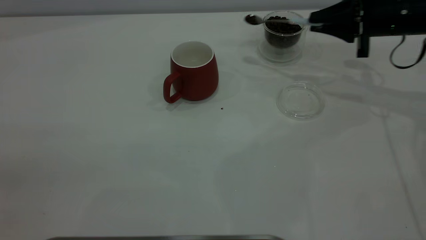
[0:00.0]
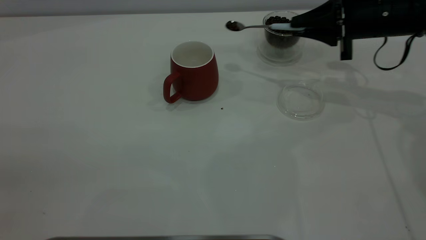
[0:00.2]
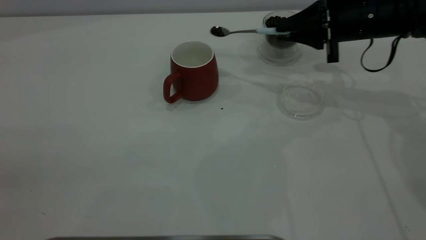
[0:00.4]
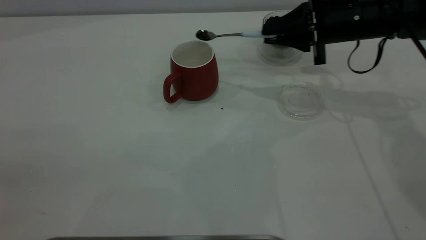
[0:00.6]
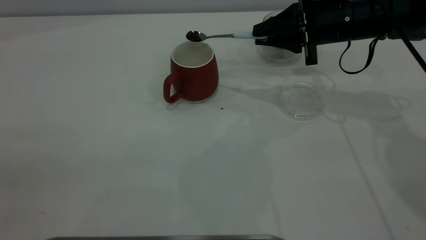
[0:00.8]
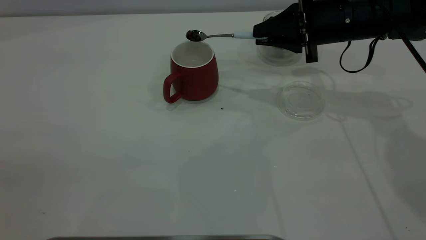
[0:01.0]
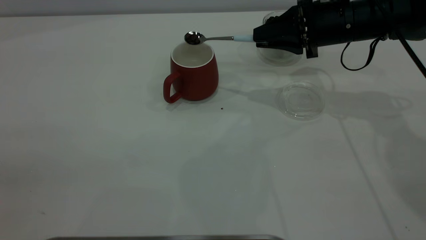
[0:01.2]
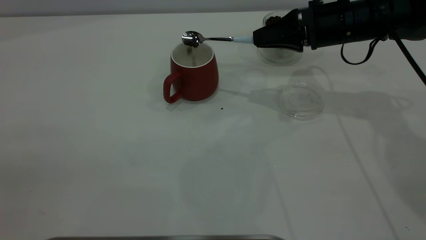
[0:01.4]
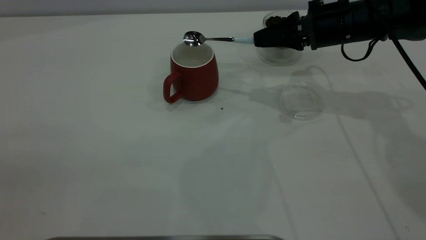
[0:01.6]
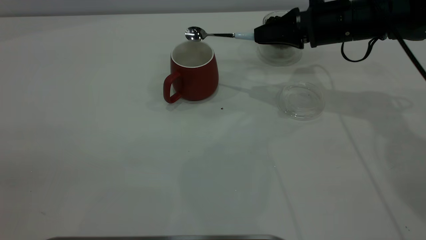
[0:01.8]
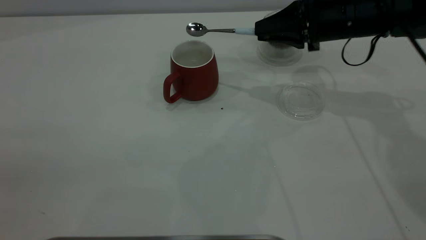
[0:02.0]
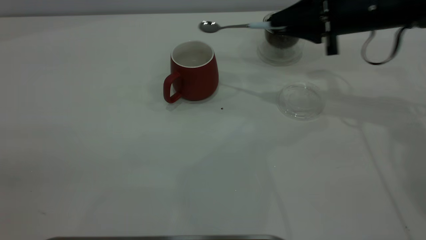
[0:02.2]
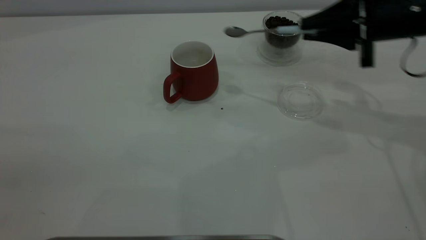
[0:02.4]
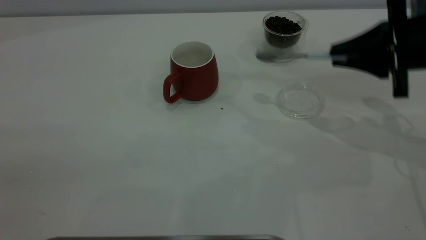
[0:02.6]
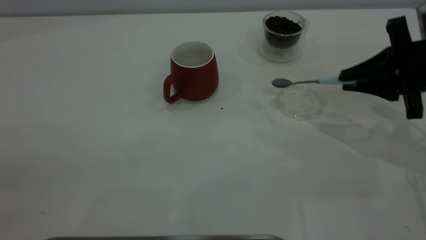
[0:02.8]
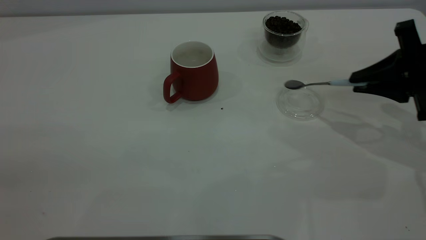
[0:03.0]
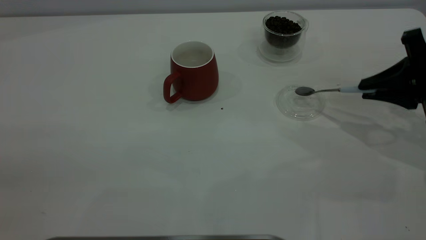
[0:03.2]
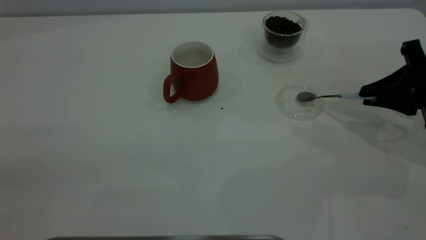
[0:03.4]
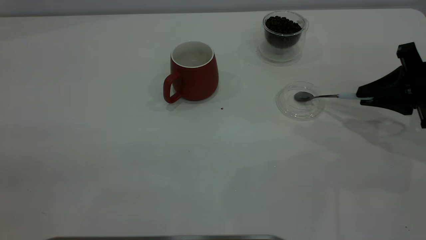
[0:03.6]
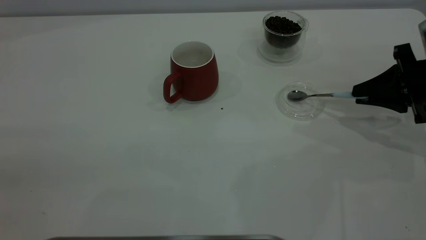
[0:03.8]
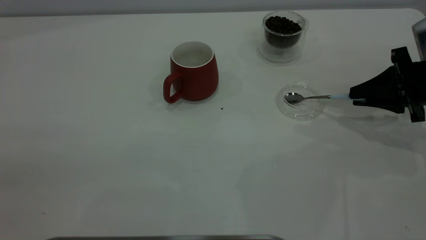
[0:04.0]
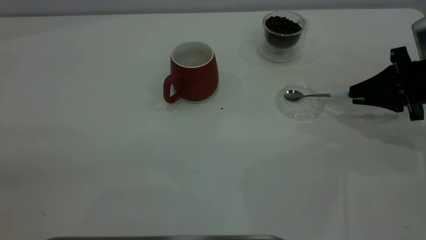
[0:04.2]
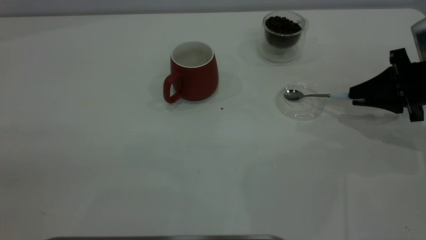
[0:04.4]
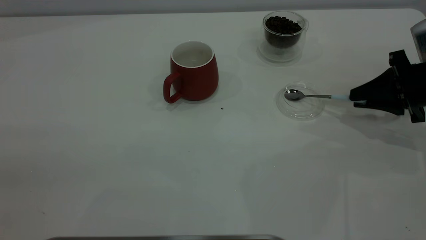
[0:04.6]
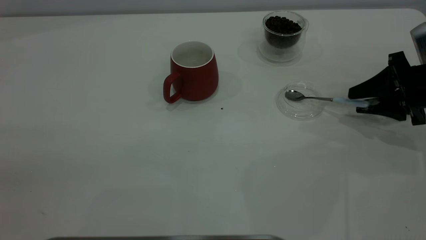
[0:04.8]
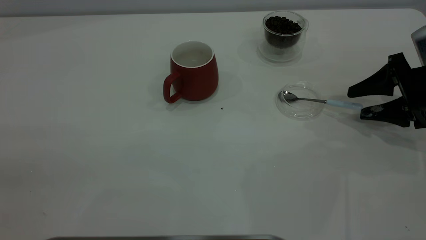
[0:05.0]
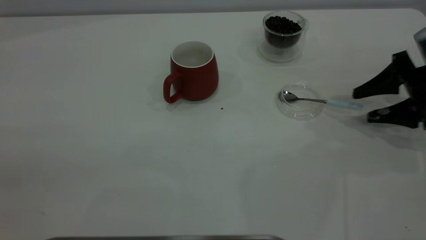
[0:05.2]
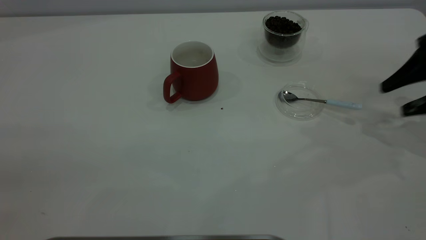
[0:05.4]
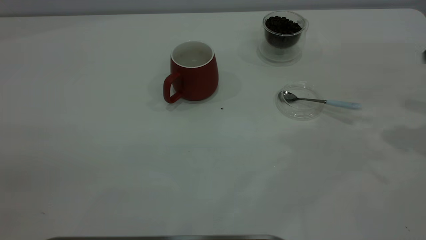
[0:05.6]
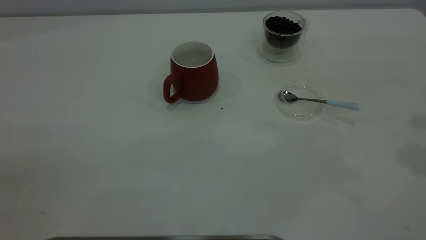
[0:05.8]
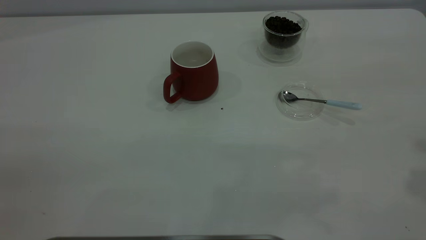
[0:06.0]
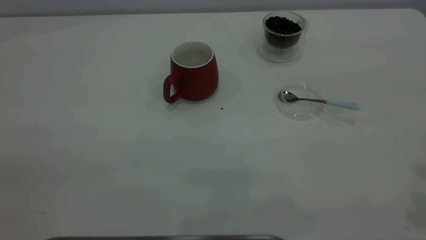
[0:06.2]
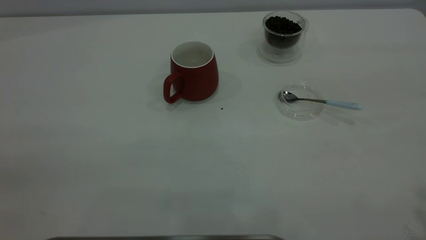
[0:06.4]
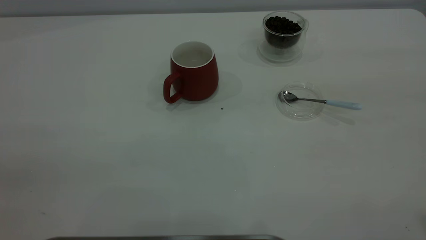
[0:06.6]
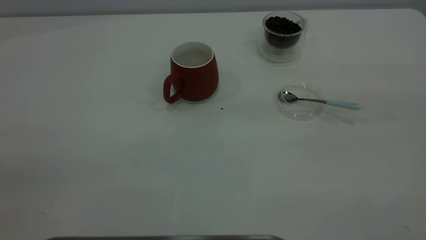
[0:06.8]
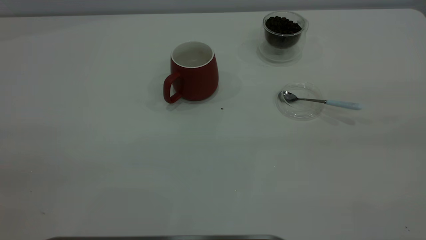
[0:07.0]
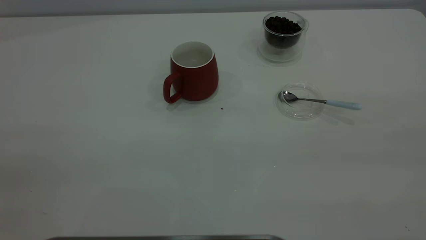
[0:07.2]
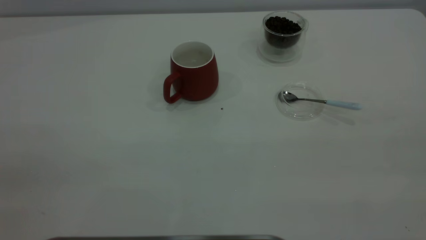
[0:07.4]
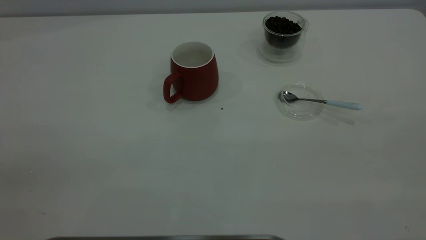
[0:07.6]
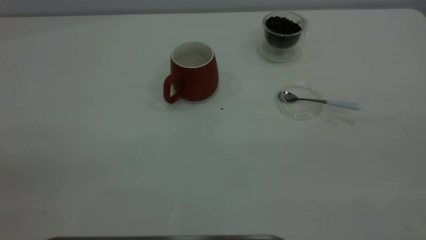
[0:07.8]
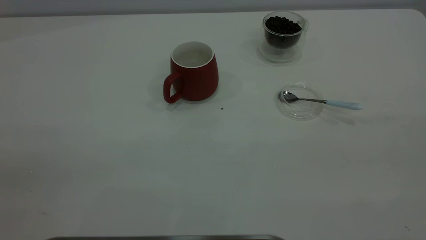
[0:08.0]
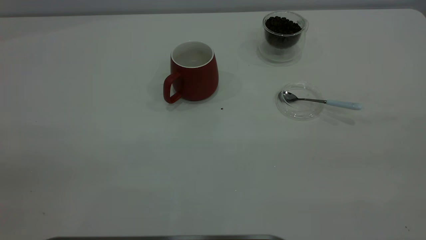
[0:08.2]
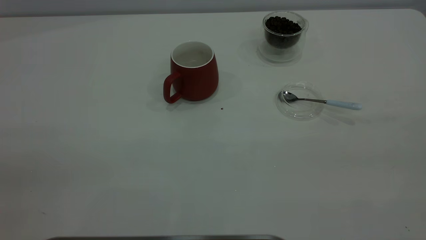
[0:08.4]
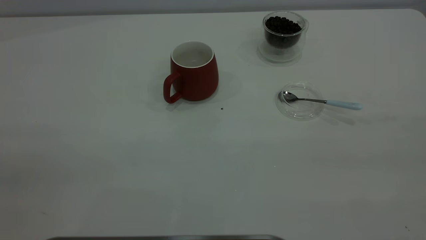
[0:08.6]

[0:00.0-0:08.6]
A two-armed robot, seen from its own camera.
Task of the whole recording: the left gripper place the red cup in the center of the table, the right gripper take the blue spoon from the cup lid and scoop out the coffee beans from the coffee cup and put them into the red cup, the right gripper put the spoon back into the cup lid.
Step, 0:02.2 to 0:05.2: Place the spoon back in its original place.
0:00.0 to 0:01.4: The right gripper heads to the left, covering some 10 cm.
0:01.4 to 0:02.8: The right gripper is displaced backward and to the right by about 15 cm.
0:02.8 to 0:04.4: The right gripper shifts about 5 cm downward.
0:04.4 to 0:05.8: The right gripper goes roughly 25 cm upward, and opens its fingers.

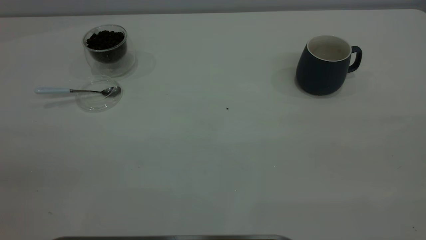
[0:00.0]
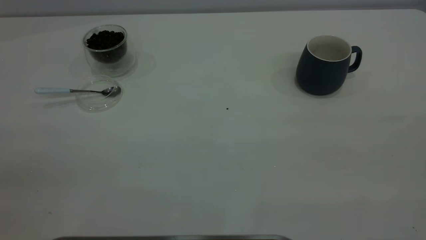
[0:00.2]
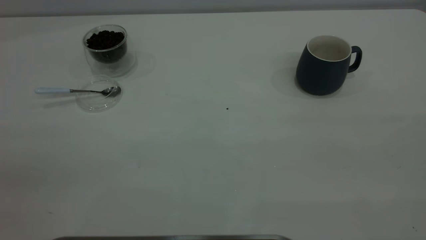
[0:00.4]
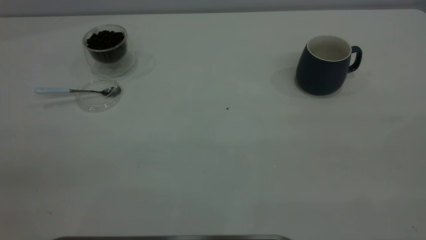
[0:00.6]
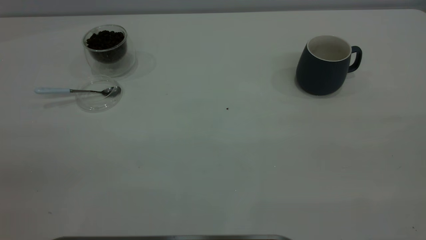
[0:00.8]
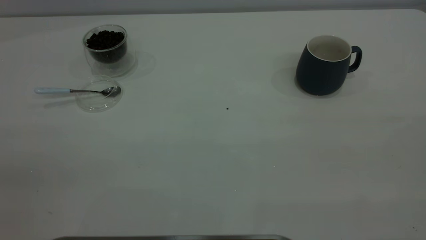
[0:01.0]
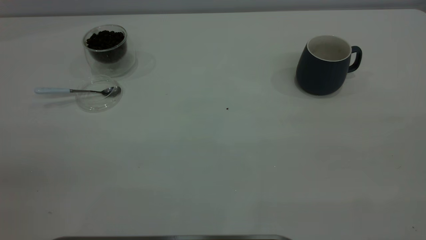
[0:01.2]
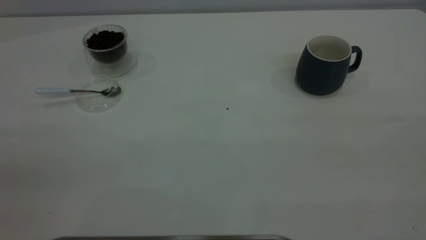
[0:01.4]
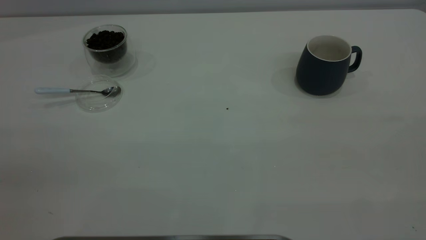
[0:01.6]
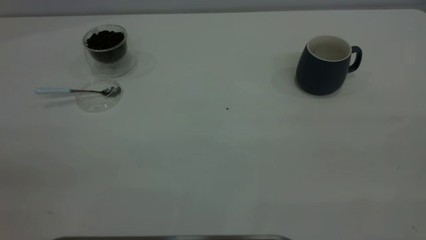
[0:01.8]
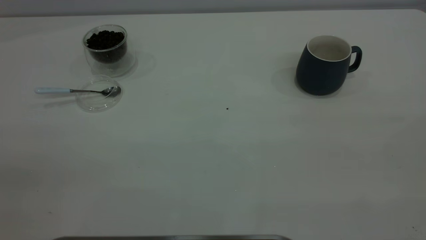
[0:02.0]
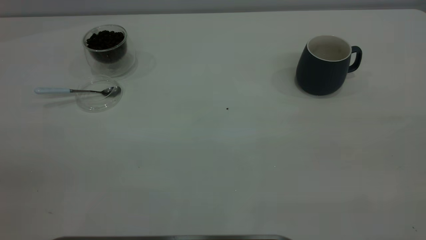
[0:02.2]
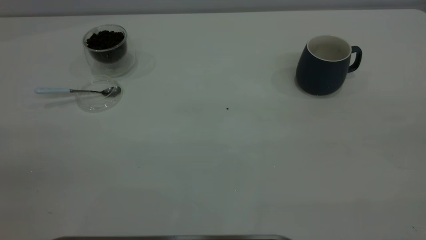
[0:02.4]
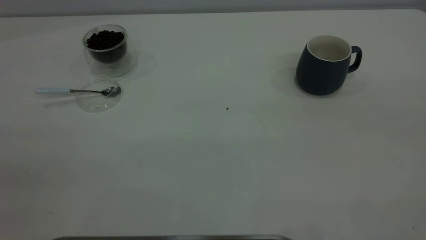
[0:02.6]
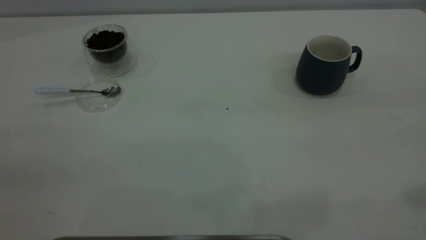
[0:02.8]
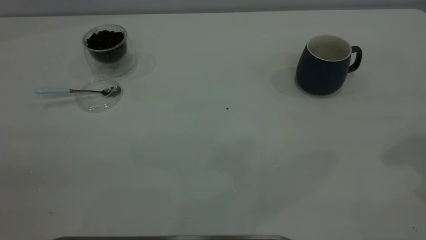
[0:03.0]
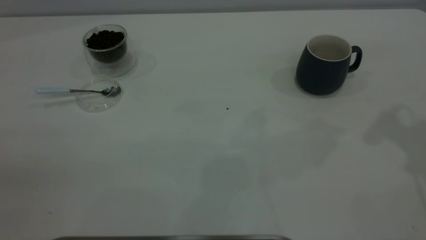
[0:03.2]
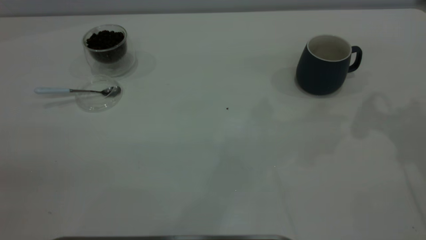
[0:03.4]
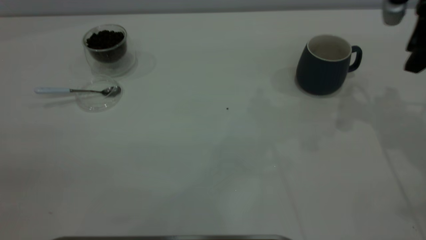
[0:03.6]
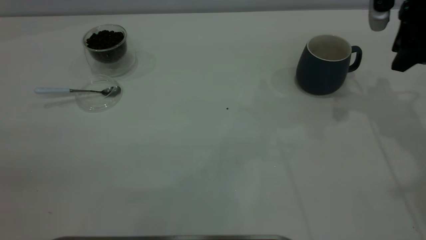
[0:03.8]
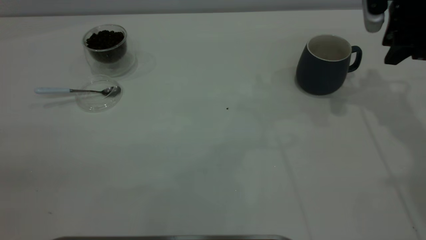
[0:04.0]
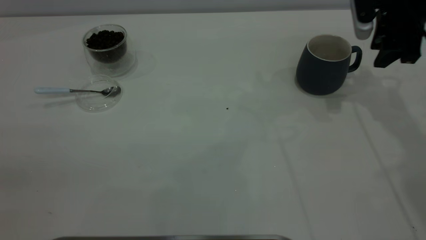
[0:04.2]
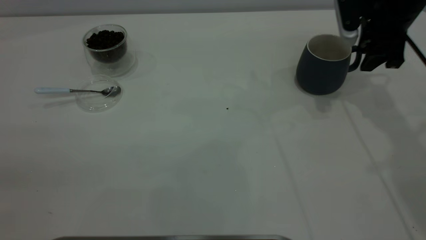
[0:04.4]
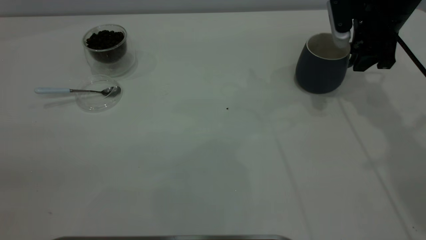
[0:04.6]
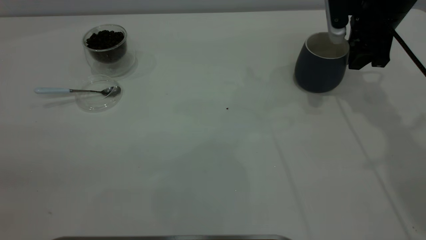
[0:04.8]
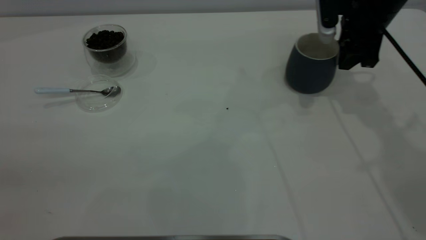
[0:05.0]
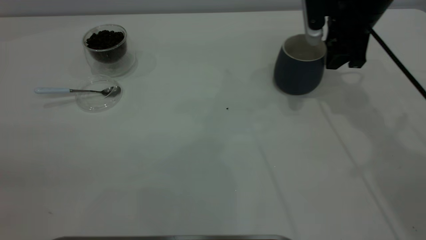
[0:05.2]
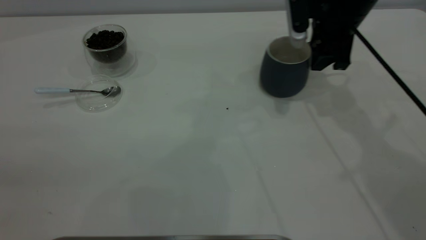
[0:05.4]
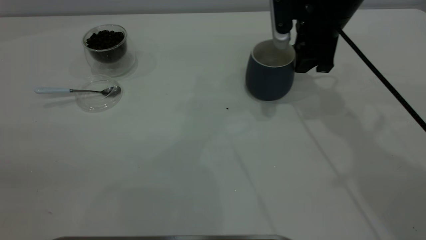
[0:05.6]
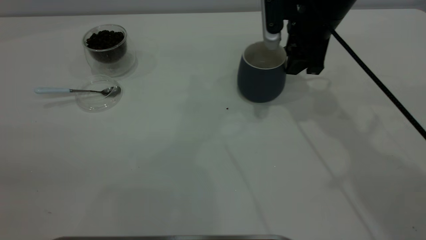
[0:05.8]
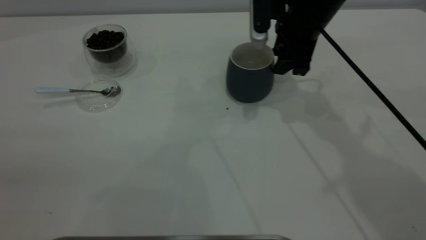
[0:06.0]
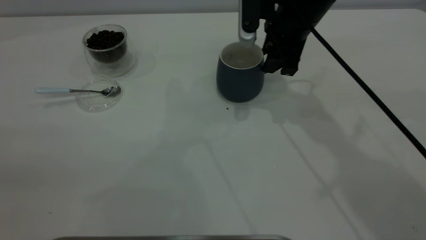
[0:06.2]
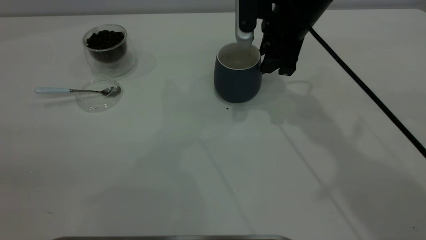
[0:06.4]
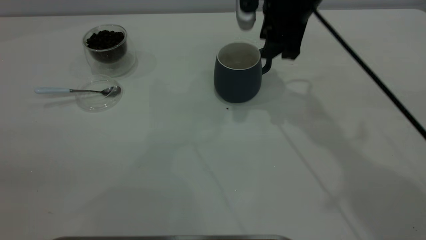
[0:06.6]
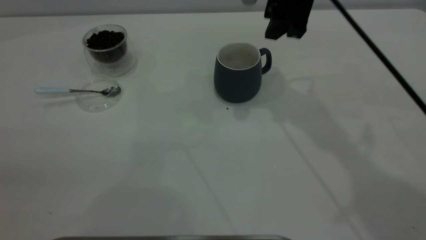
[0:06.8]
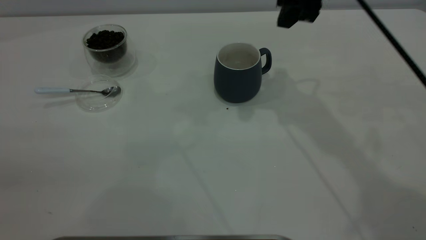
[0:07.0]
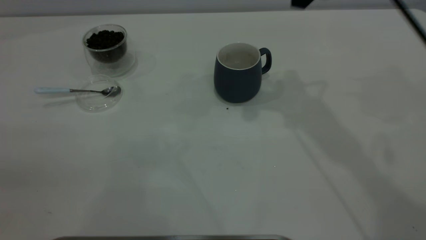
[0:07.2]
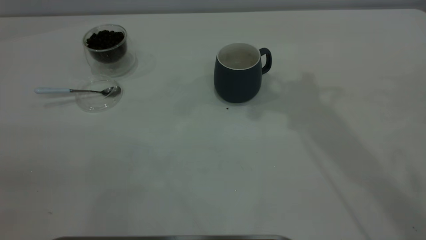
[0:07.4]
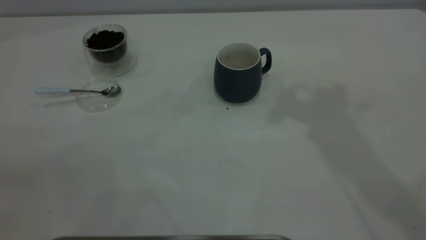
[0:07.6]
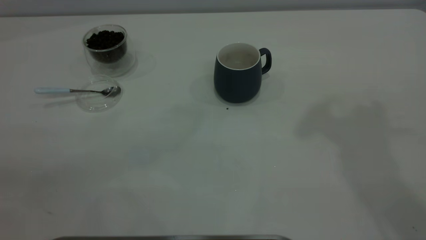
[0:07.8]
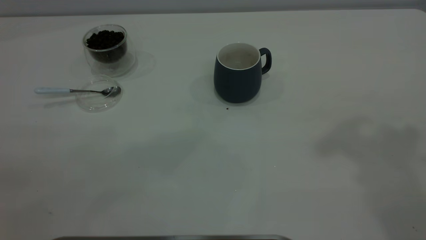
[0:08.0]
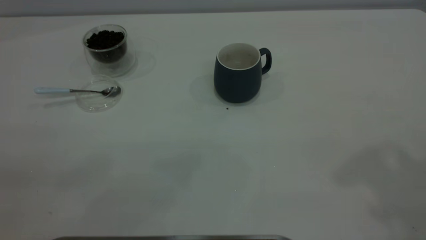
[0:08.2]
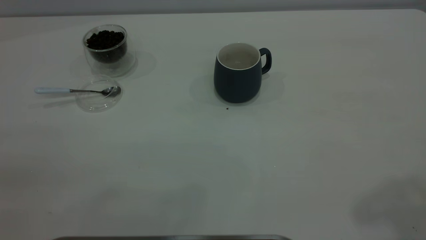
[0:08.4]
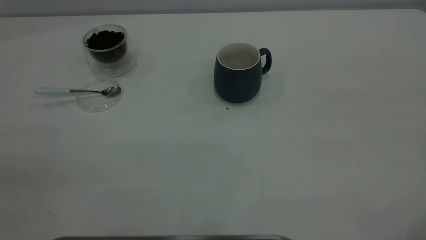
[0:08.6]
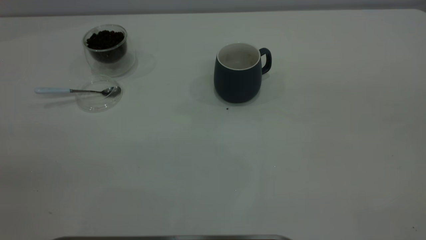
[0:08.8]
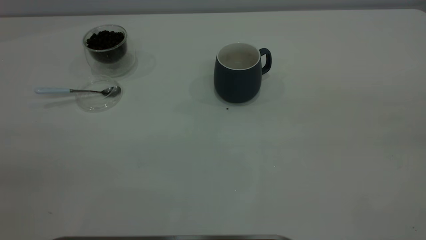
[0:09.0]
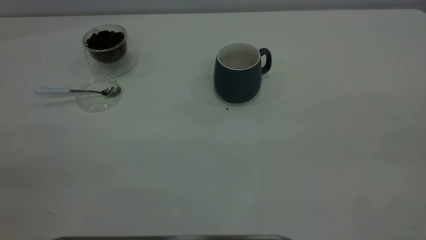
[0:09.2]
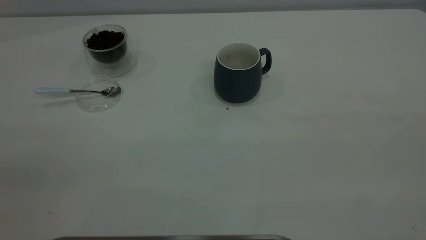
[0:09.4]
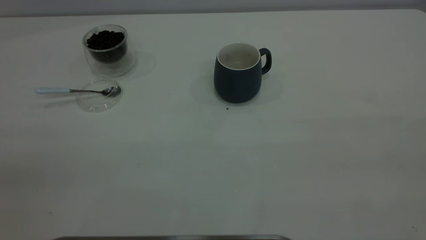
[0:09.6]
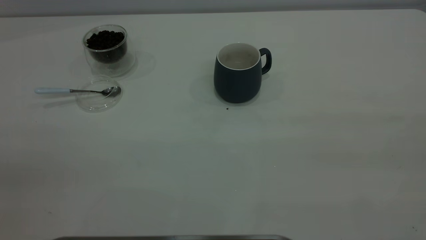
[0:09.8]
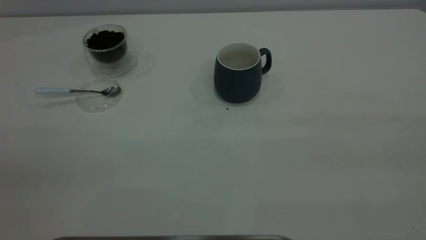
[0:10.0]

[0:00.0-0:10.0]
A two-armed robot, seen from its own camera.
Task of the whole recording: the right gripper place the grey cup in the center of the table, the left gripper take the blue spoon from the cup lid and scoop out the coffee beans from the coffee cup and put them into the grey cup, the left gripper put the spoon back into the cup lid.
Step, 0:00.0 to 0:06.8: Move the cup to the center of view.
0:00.0 to 0:01.4: Neither gripper changes place.
0:02.8 to 0:04.2: The right gripper heads forward and downward, covering roughly 35 cm.
0:04.2 to 0:05.8: The right gripper goes some 15 cm to the left.
0:05.8 to 0:07.2: The right gripper moves upward, approximately 15 cm.
